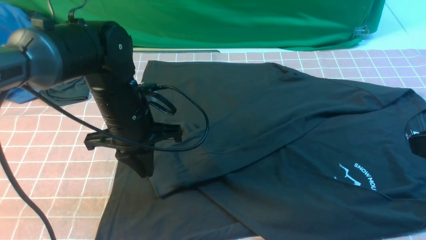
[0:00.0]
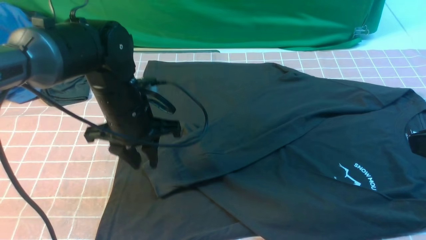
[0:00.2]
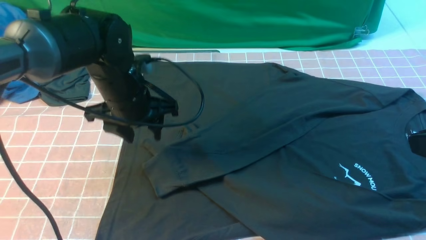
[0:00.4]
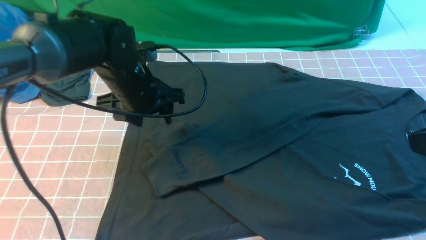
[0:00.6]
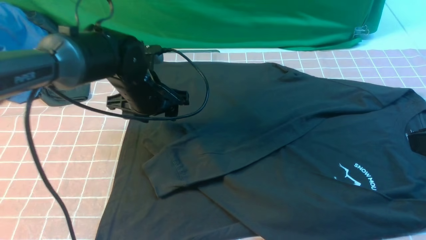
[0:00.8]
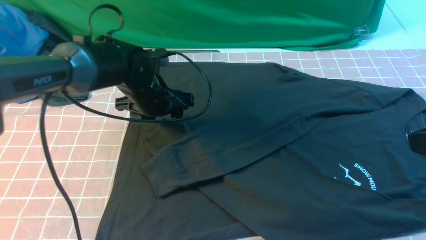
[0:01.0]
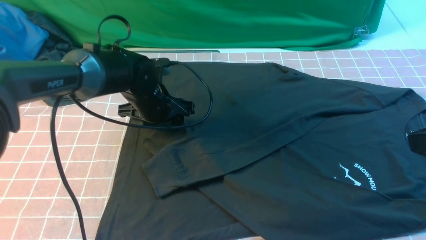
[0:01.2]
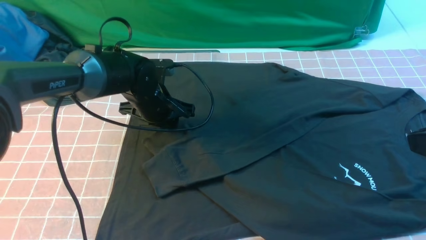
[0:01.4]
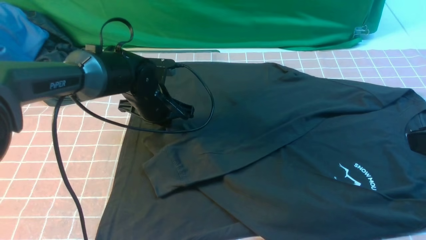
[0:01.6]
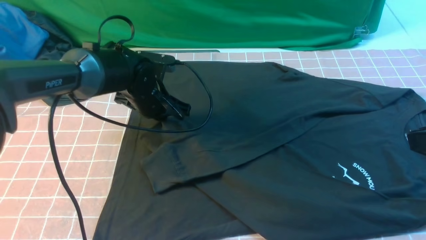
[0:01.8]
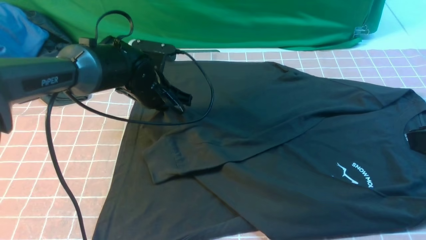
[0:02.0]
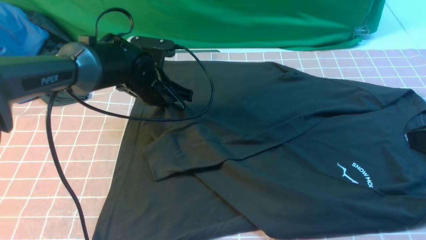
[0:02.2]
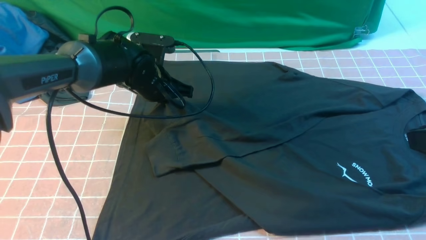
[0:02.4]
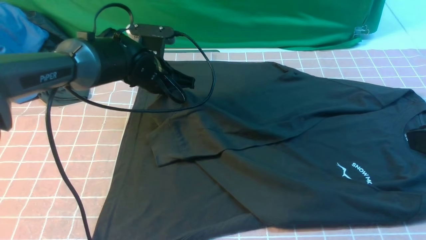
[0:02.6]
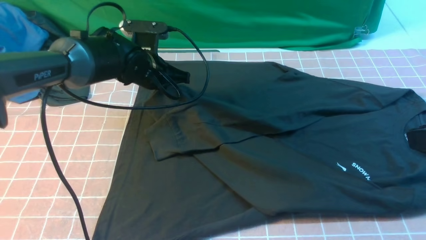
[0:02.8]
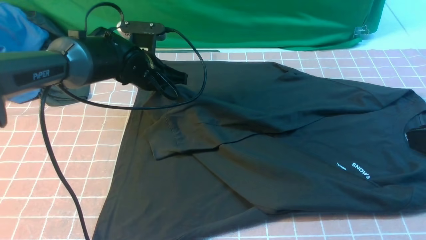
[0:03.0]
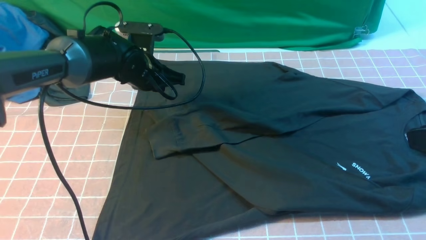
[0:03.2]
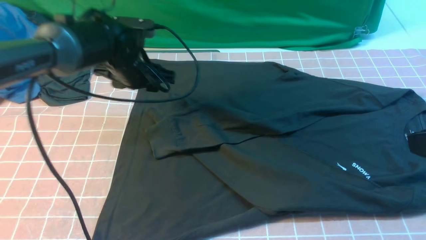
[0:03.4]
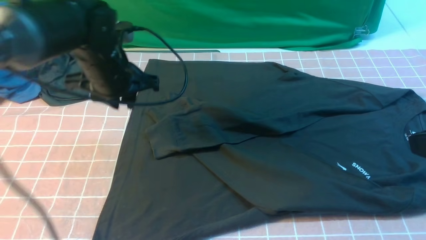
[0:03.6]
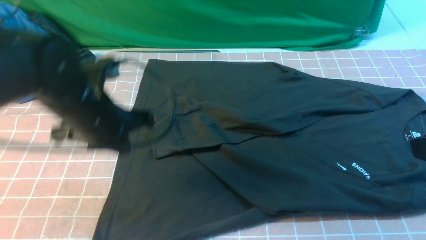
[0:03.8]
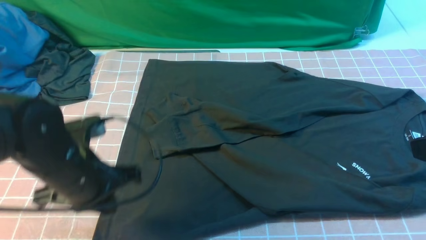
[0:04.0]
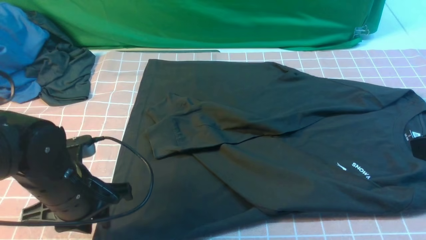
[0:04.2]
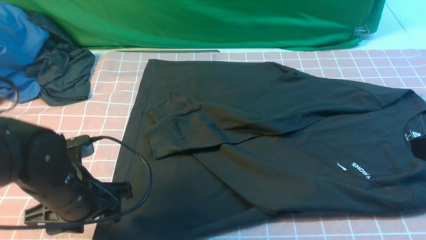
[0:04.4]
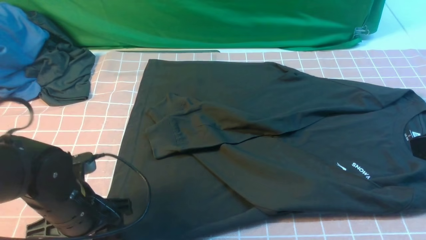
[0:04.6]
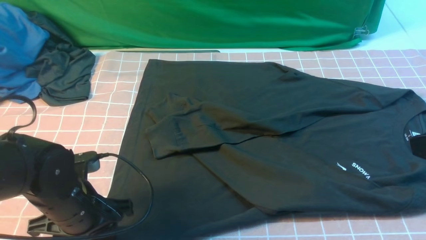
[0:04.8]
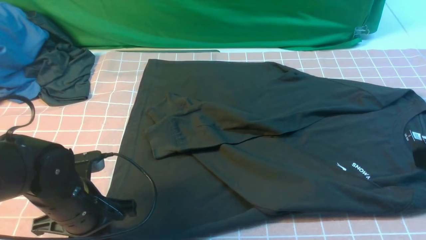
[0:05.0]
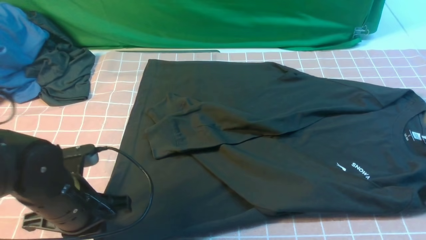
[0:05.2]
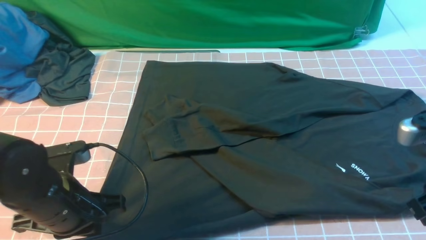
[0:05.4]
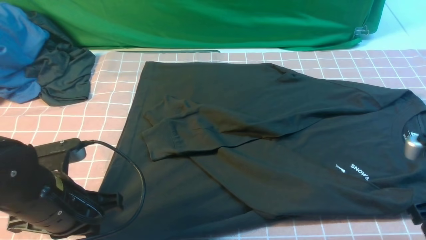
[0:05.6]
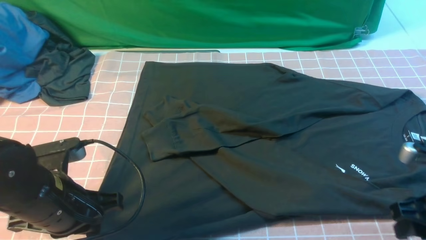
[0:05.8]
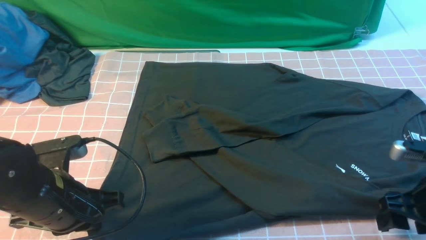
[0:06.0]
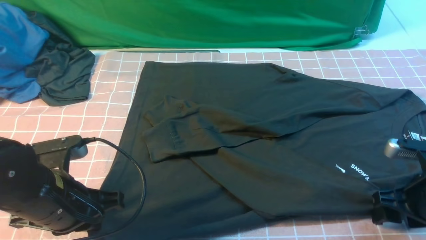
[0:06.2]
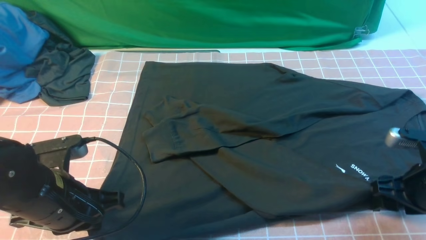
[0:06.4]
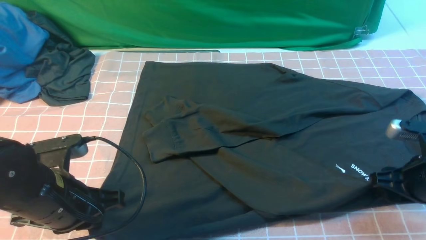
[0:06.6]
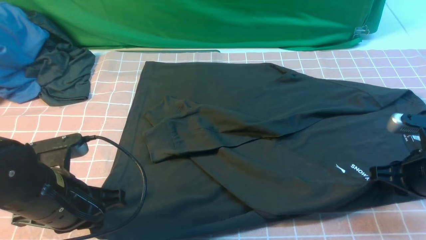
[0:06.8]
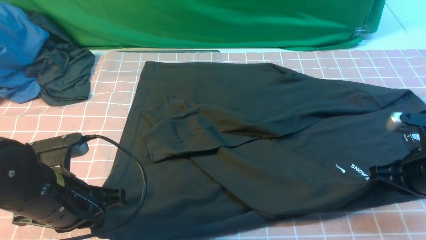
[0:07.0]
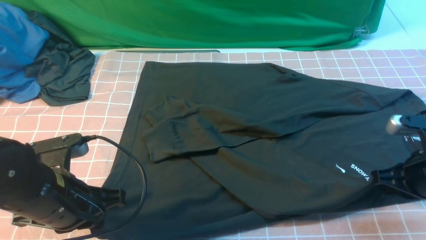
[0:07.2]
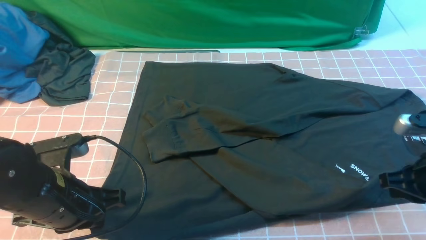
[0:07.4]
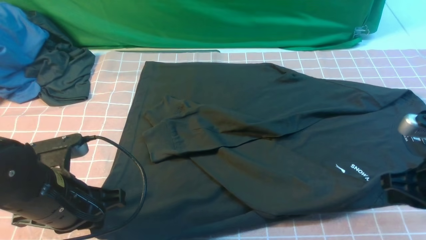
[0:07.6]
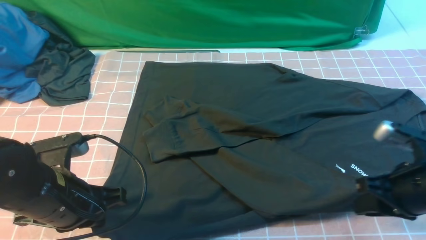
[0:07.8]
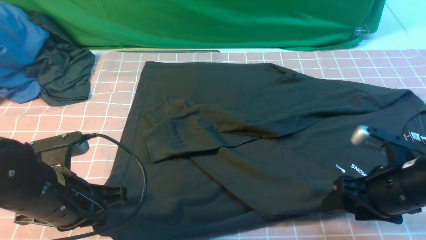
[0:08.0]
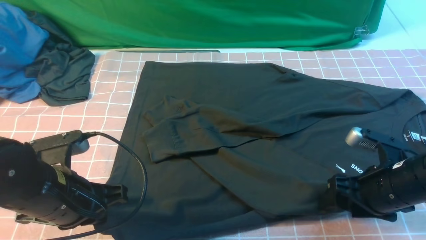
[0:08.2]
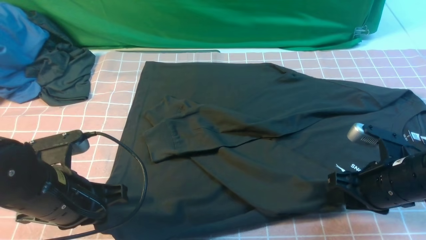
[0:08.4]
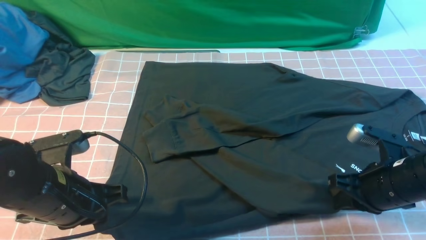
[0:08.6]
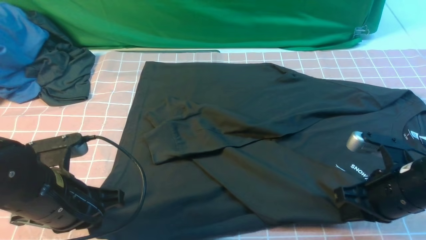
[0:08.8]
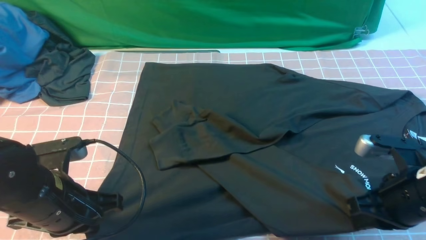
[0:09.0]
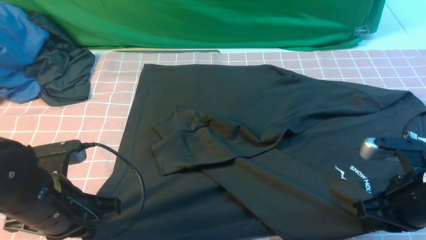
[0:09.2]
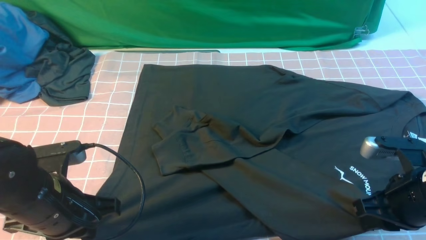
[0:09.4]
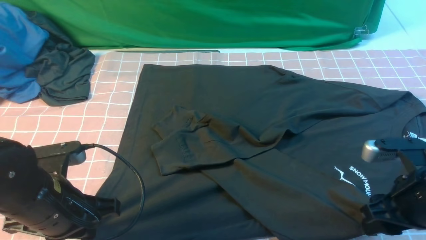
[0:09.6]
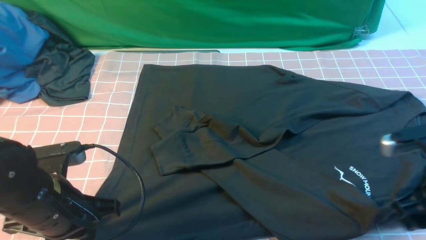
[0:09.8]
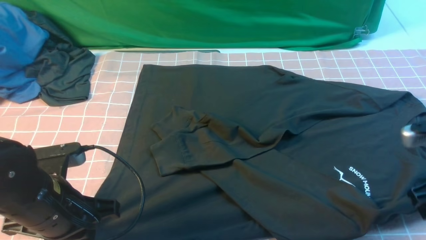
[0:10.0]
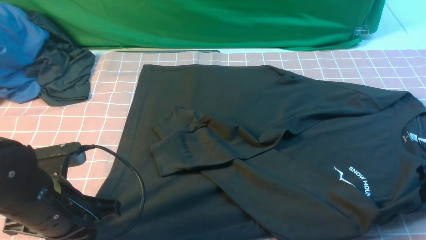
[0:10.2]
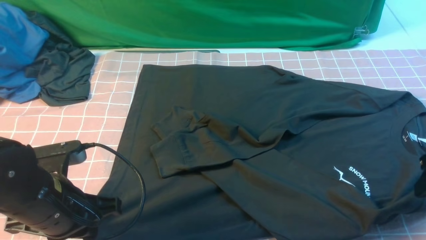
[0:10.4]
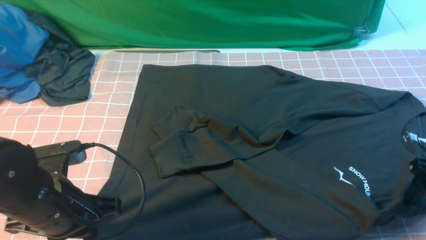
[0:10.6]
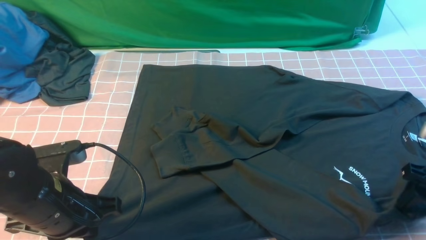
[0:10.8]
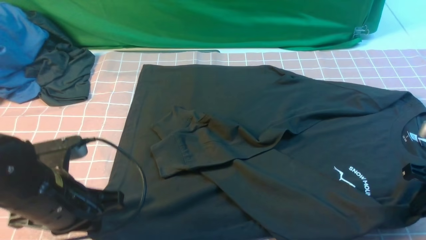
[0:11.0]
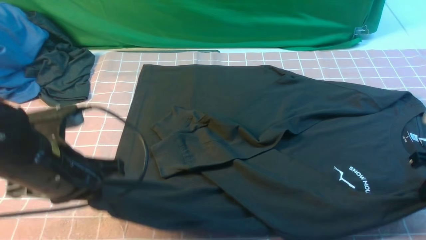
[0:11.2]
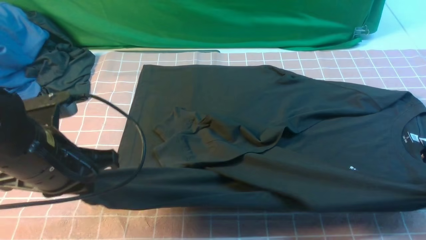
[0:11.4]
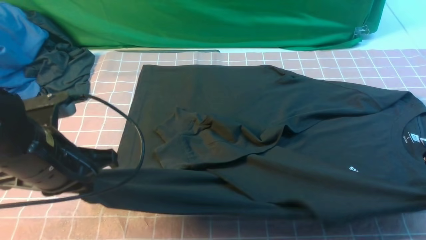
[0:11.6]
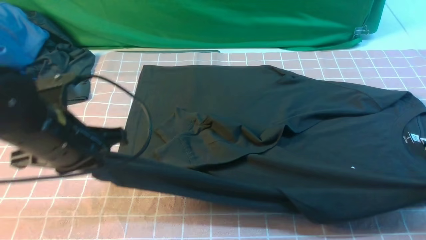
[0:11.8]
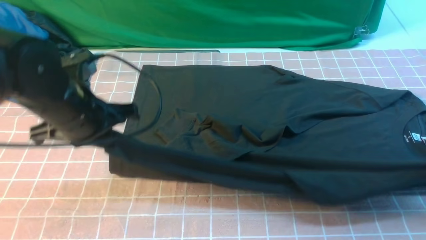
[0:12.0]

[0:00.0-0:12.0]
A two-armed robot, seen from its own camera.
Step, 0:00.0 to 0:08.6: use both arms simultaneously to clamp the lower edge of the clothing fabric.
0:00.0 to 0:01.6: The left gripper is displaced forward and downward by approximately 10 cm, and opens, then closes again.
0:01.6 to 0:03.0: There are only small adjustments of the grippers.
0:03.0 to 0:04.4: The left gripper goes some 20 cm backward, and opens up.
0:04.4 to 0:06.0: The right gripper is displaced downward by some 15 cm, and opens. Meanwhile the left gripper closes up.
0:06.0 to 0:07.6: The right gripper closes its fingers.
0:07.6 to 0:09.0: The right gripper opens and closes again.
0:09.0 to 0:10.4: The right gripper moves to the right, roughly 10 cm, and opens.
0:10.4 to 0:12.0: The left gripper shifts approximately 10 cm forward and upward. Meanwhile the right gripper heads forward, covering roughly 5 cm, and closes up.

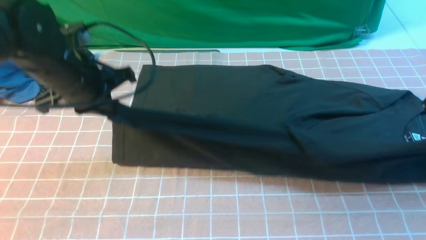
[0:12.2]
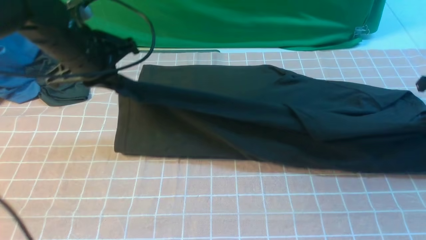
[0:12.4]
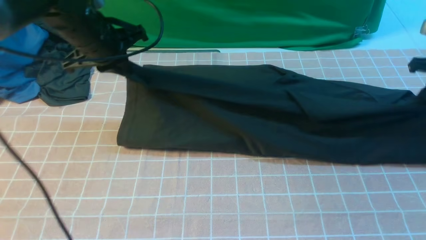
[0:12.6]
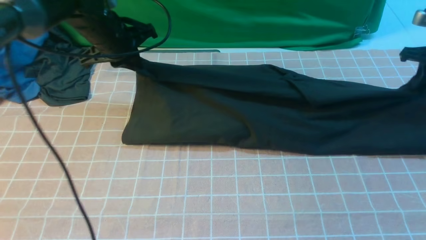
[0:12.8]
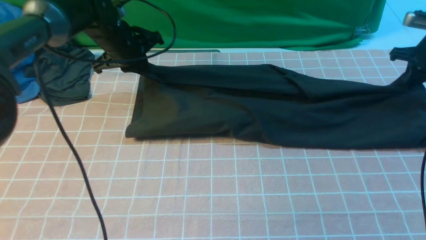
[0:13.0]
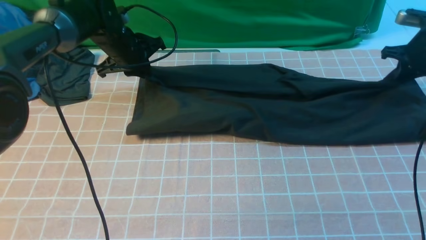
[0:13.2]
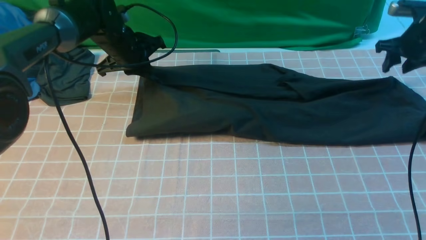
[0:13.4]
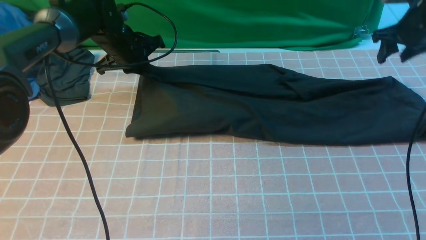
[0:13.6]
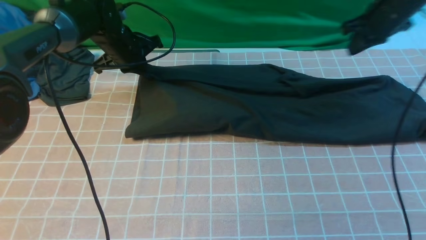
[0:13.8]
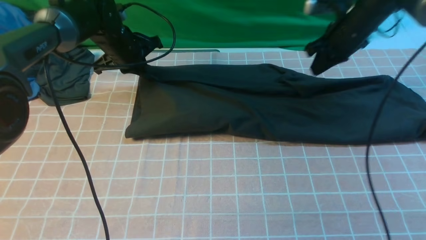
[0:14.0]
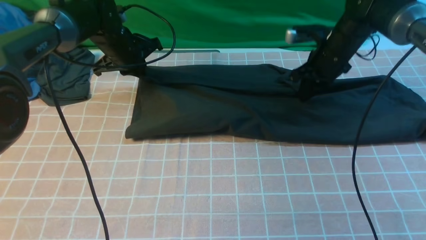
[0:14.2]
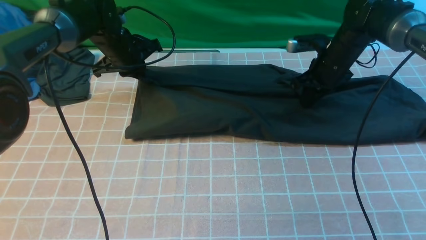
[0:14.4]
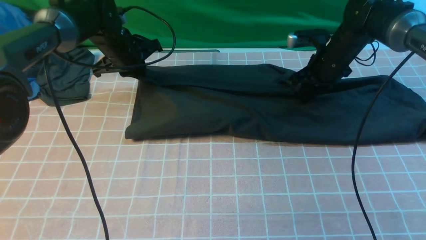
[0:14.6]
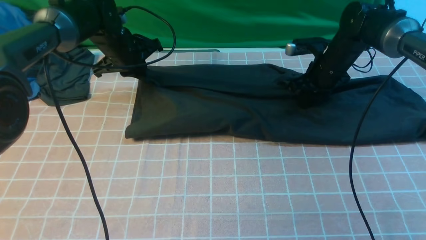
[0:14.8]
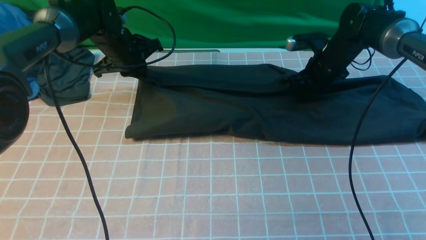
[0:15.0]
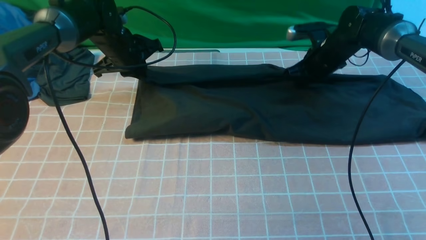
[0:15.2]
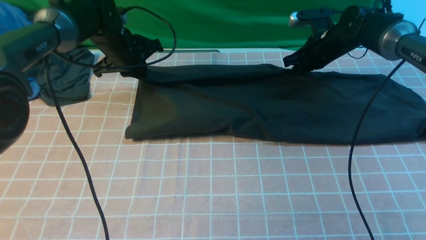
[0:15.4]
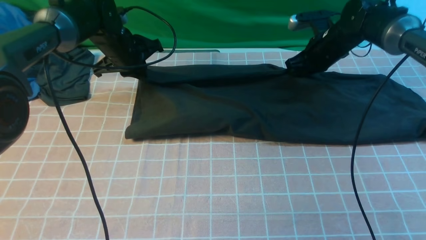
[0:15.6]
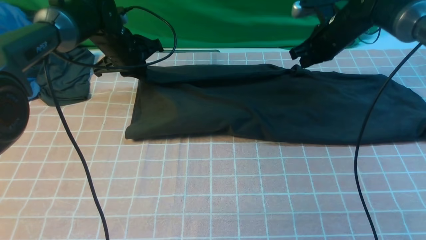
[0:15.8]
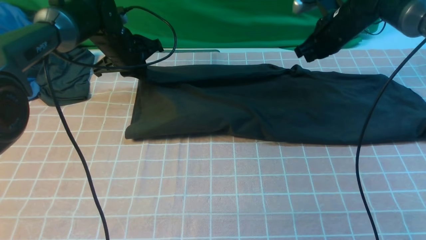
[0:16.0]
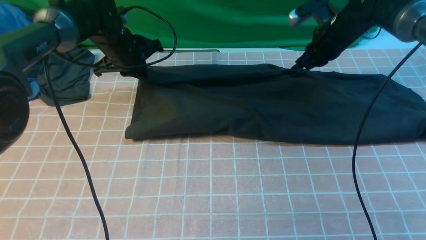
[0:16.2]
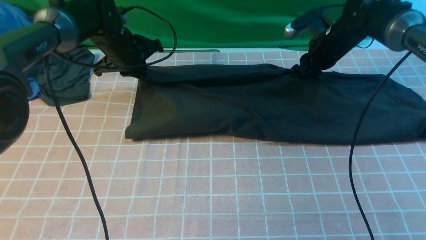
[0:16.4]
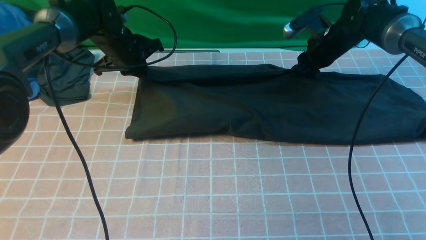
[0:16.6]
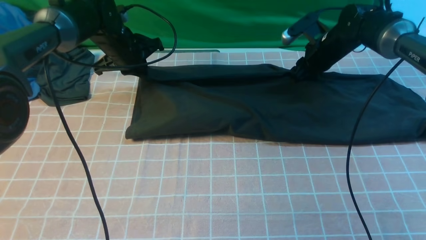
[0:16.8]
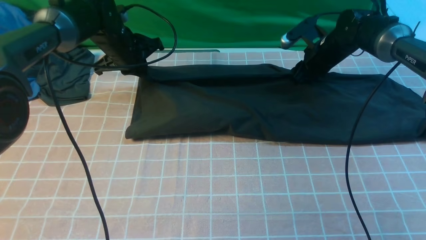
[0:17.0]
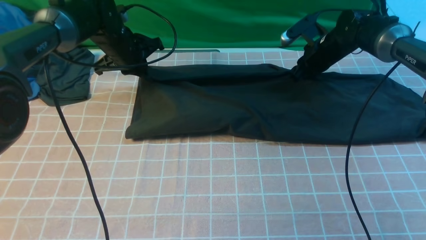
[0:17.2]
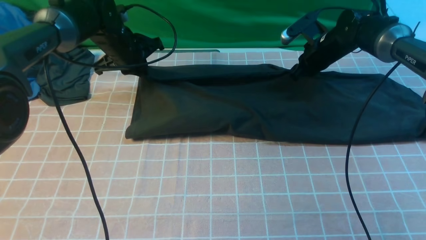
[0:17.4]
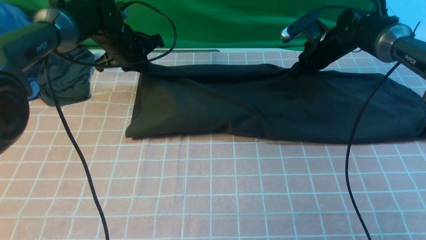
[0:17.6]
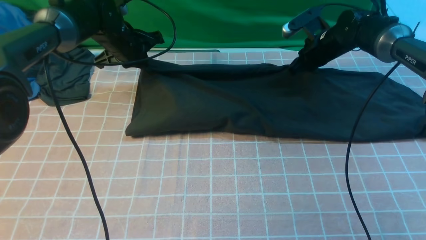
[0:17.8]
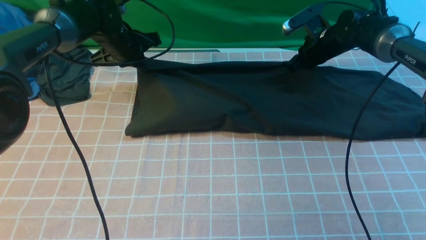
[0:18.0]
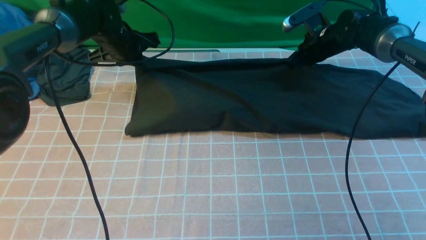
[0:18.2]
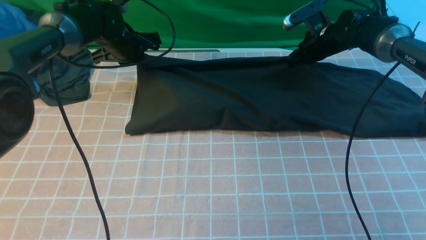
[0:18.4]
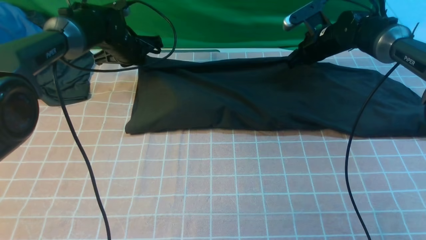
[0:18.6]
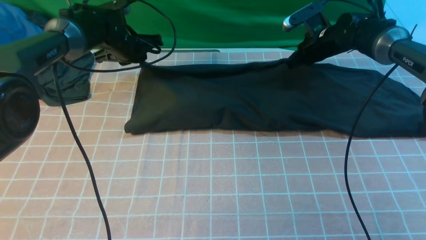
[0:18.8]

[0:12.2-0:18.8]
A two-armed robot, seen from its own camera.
0:12.2 to 0:13.8: The left gripper goes approximately 20 cm forward and downward, while the right gripper shifts approximately 20 cm forward and to the left, and opens, then closes again.
0:13.8 to 0:15.4: The right gripper heads downward and to the left, covering some 10 cm.
0:17.2 to 0:18.8: The grippers make only small movements.
